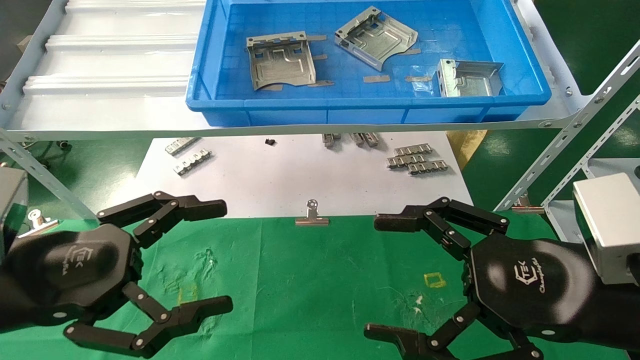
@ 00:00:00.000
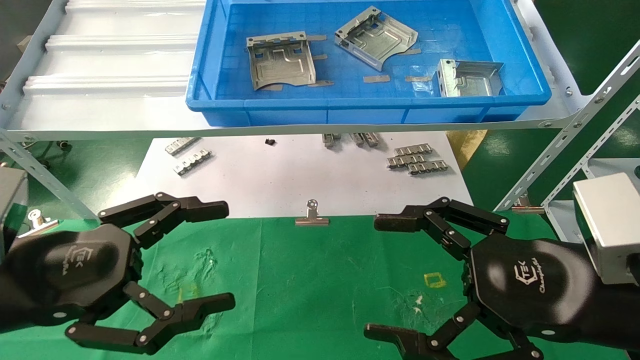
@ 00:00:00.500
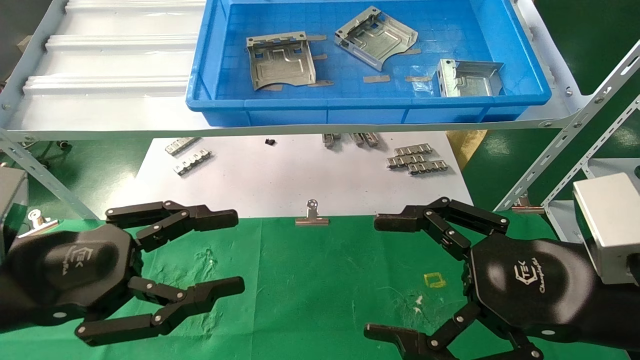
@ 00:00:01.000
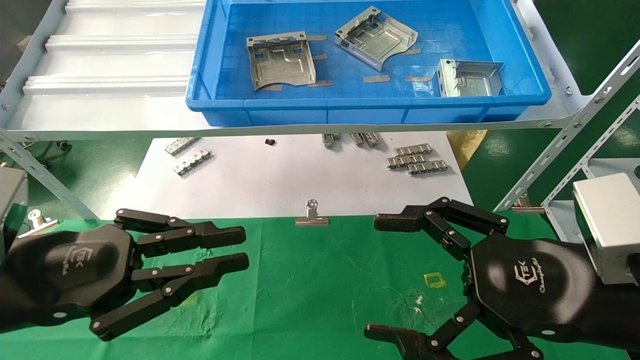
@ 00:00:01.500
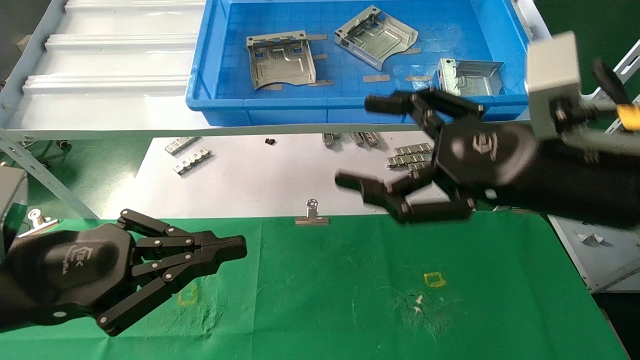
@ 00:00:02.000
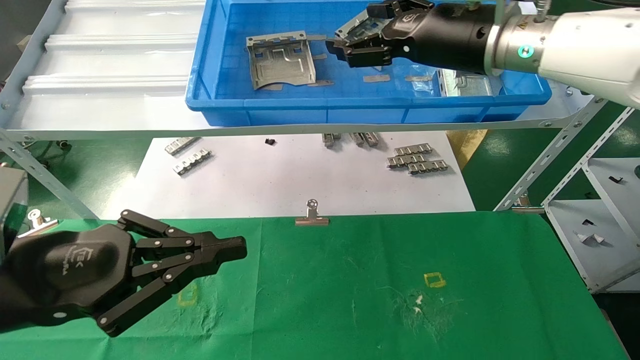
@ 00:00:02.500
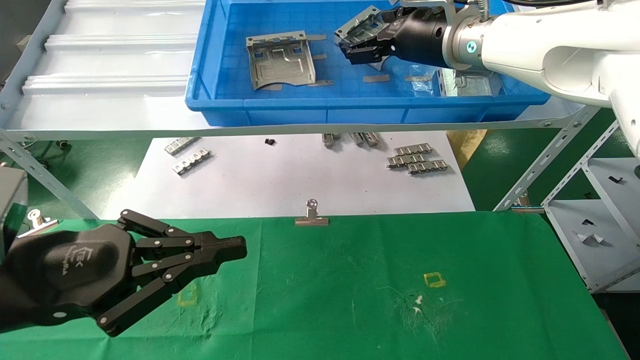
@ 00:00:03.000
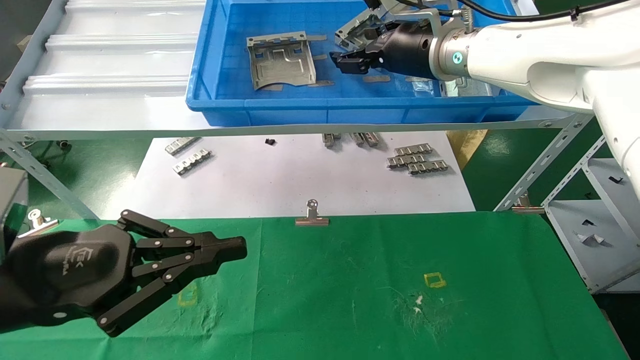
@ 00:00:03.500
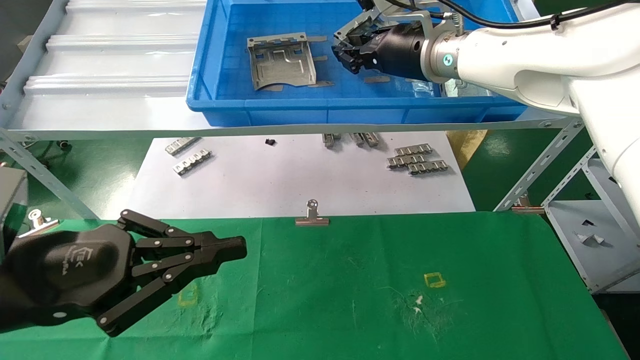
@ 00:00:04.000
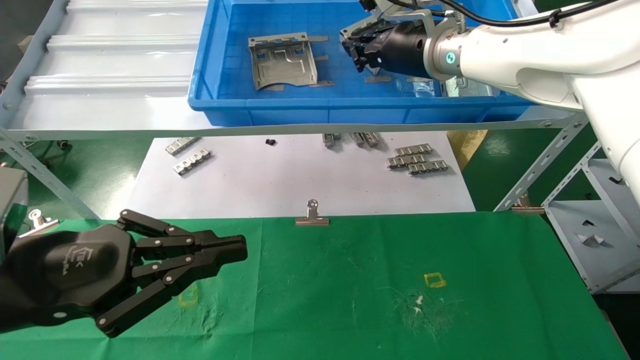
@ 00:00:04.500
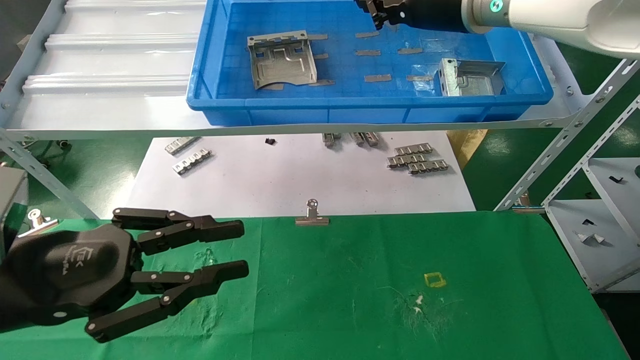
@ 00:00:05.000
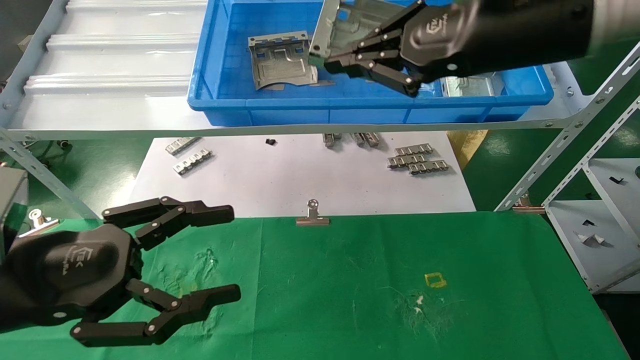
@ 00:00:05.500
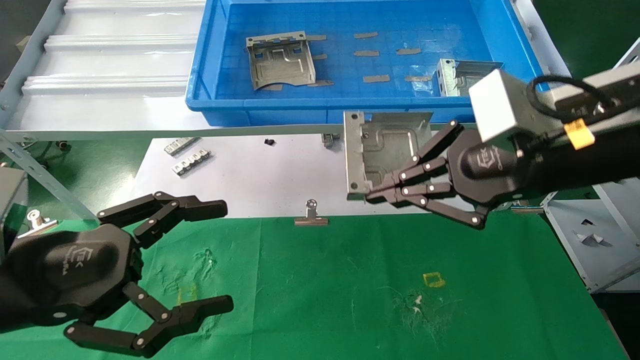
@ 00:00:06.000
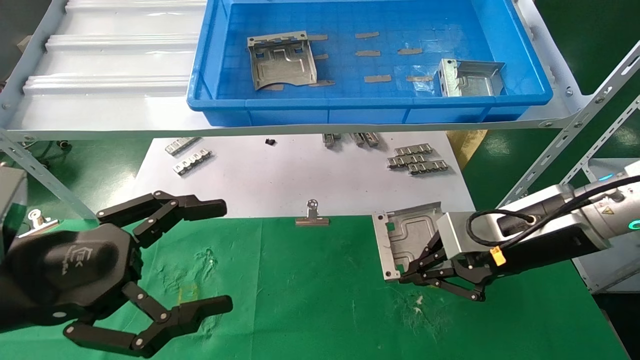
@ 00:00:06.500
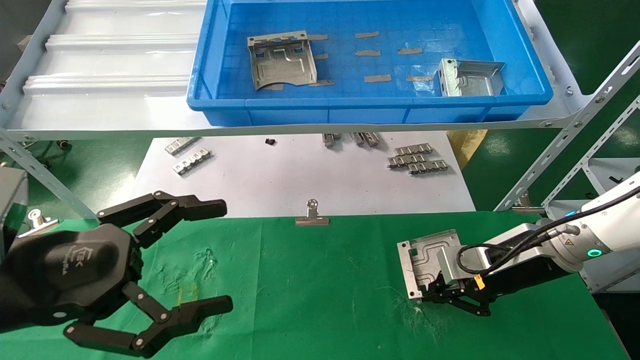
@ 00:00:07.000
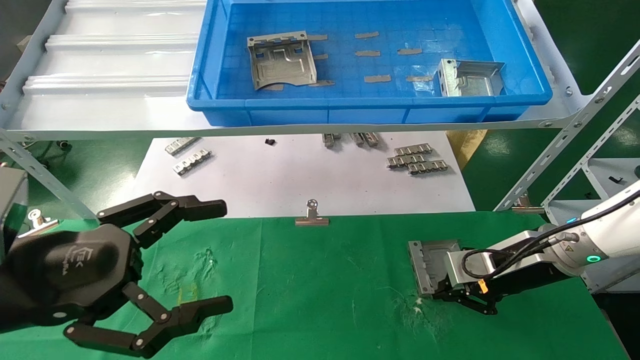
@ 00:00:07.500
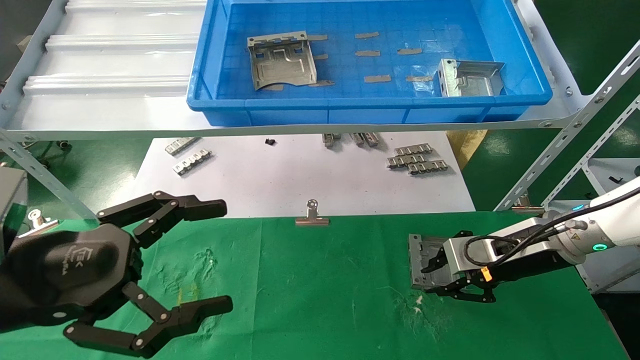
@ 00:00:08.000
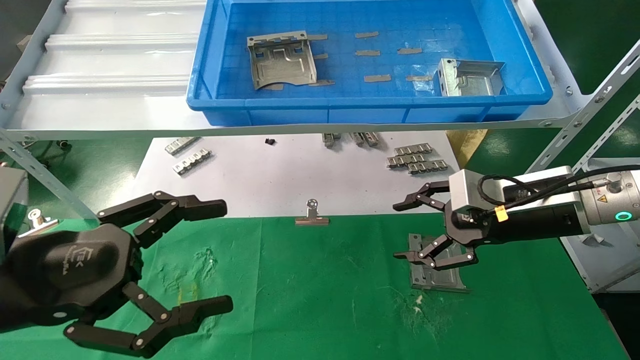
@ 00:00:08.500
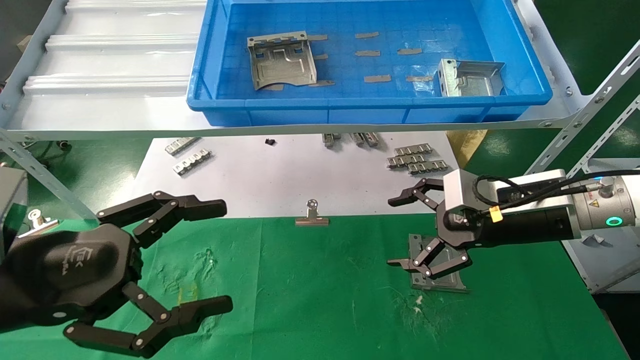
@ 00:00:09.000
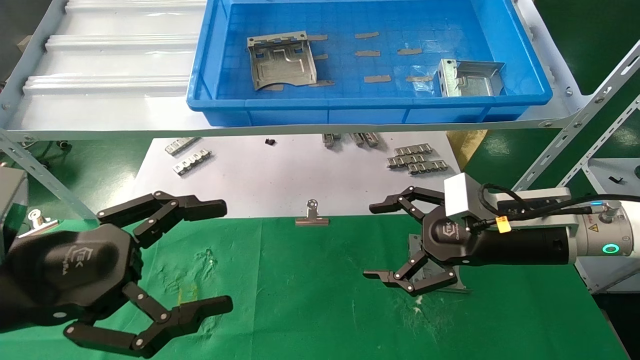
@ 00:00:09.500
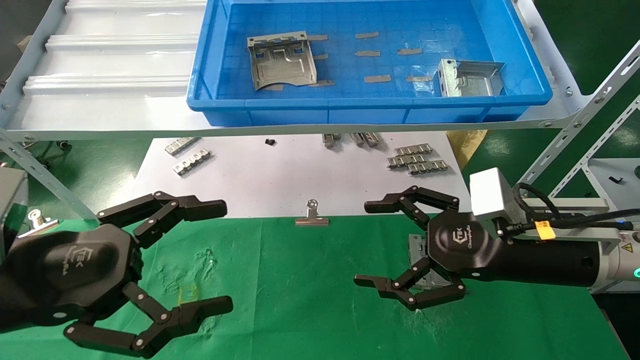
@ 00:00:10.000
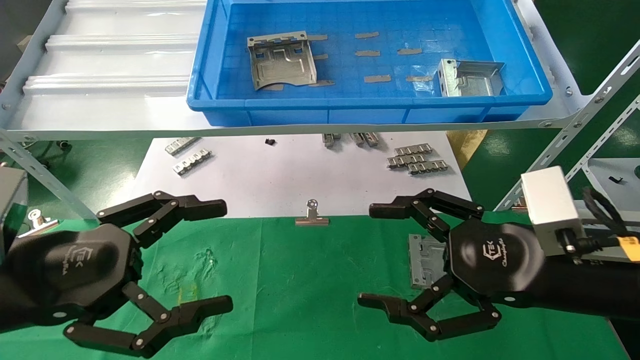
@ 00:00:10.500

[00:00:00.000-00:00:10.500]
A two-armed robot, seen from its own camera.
Task of the whole recording: use the mechanical arm to pick up the parts and place them on the table.
Step, 00:00:02.500 to 00:00:04.000: Pick up the hard drive bracket from the feeding area.
Step, 00:00:04.500 to 00:00:07.500: Place the hard drive bracket into the box.
00:00:00.000 to 00:00:02.000: The left gripper closes up. Meanwhile the right gripper travels upward and forward by roughly 10 cm.
00:00:02.000 to 00:00:04.000: The right gripper shifts roughly 25 cm forward, to the left and upward, and closes.
00:00:04.000 to 00:00:06.500: The right gripper goes about 25 cm downward, backward and to the right, and closes up. The left gripper opens up.
00:00:06.500 to 00:00:08.500: The right gripper reaches roughly 10 cm downward, then returns, and opens.
00:00:08.500 to 00:00:10.500: The right gripper travels backward by some 10 cm, and opens its fingers.
